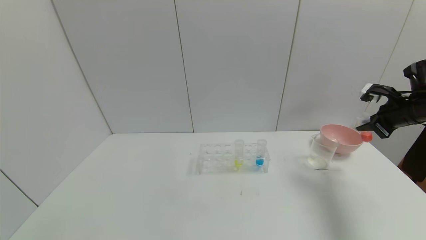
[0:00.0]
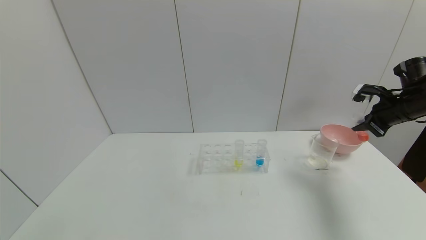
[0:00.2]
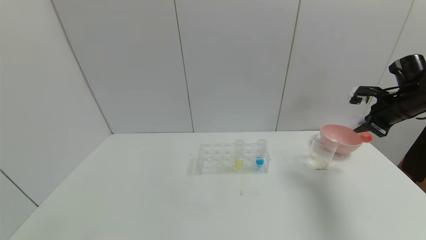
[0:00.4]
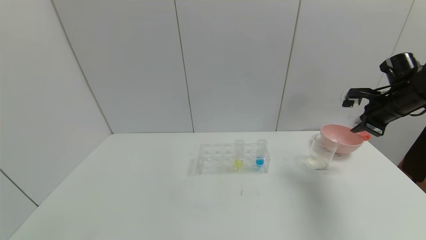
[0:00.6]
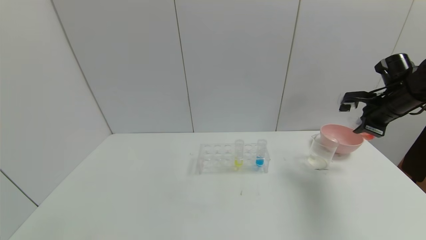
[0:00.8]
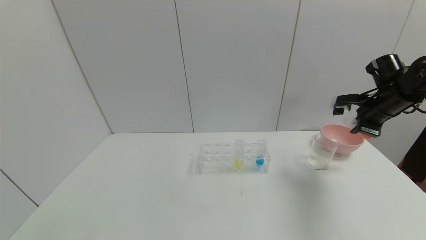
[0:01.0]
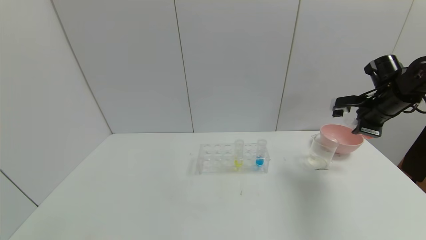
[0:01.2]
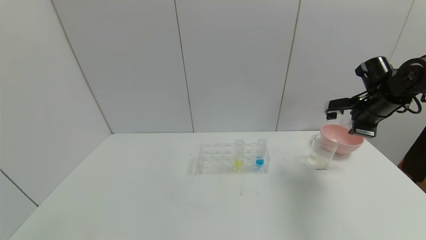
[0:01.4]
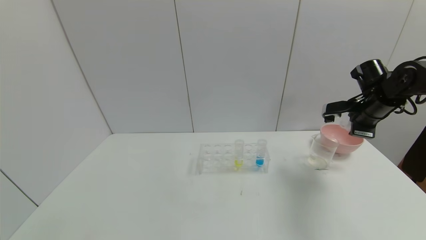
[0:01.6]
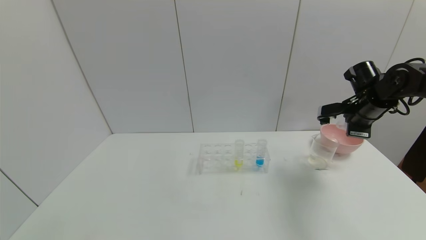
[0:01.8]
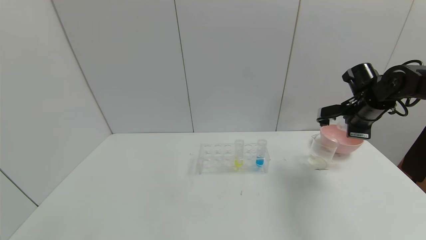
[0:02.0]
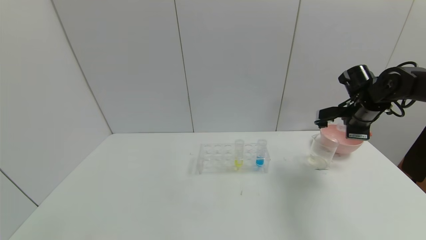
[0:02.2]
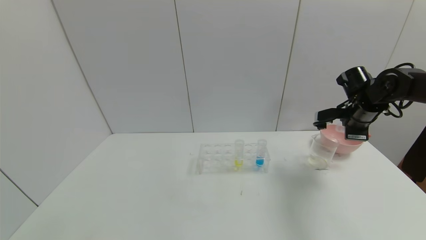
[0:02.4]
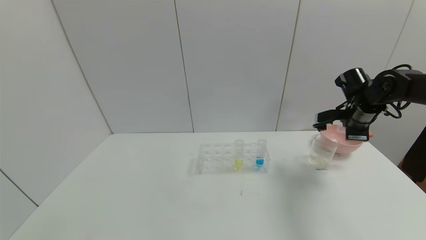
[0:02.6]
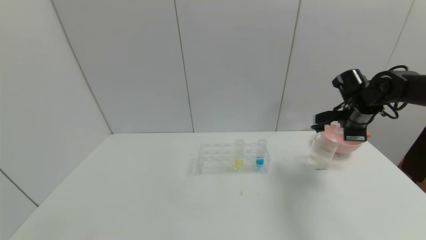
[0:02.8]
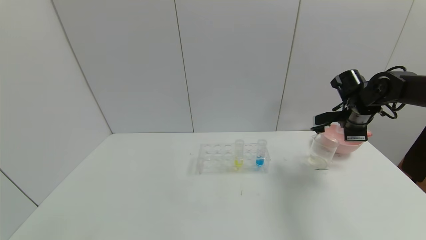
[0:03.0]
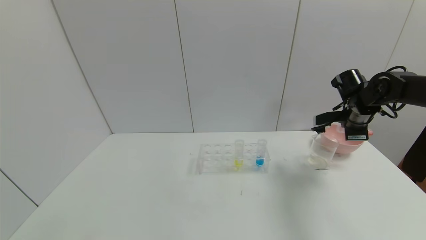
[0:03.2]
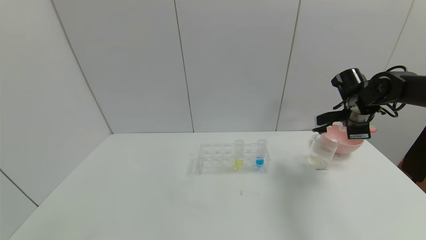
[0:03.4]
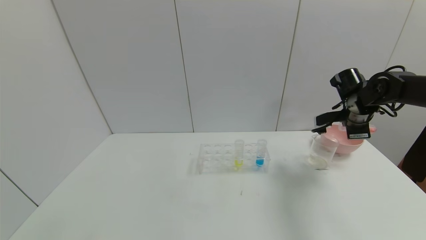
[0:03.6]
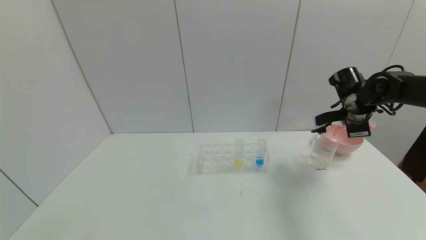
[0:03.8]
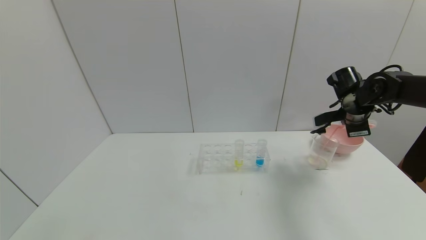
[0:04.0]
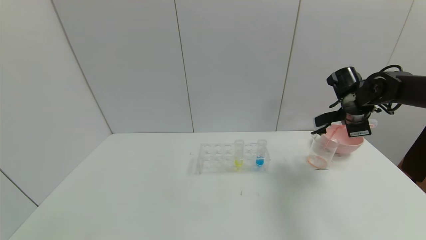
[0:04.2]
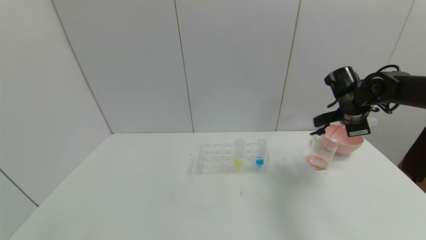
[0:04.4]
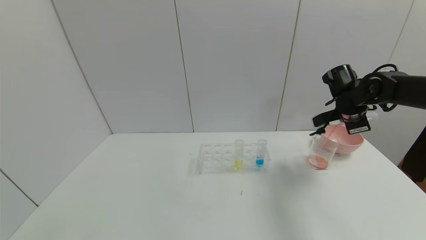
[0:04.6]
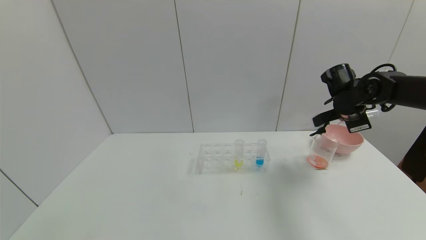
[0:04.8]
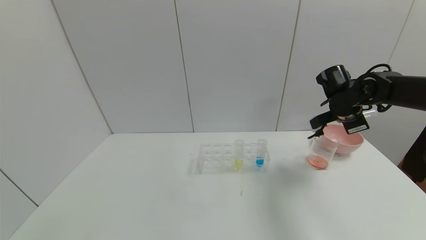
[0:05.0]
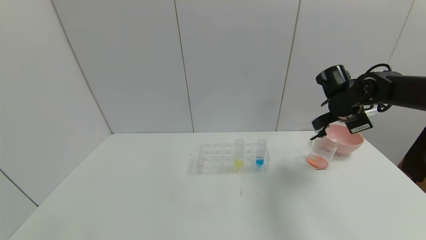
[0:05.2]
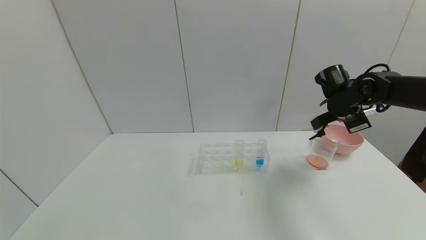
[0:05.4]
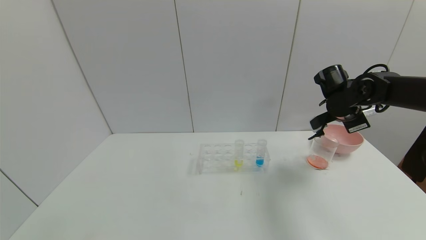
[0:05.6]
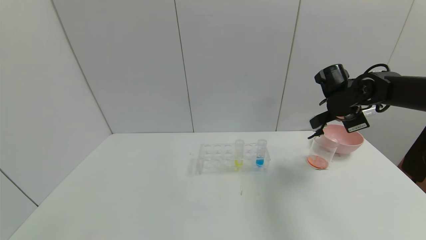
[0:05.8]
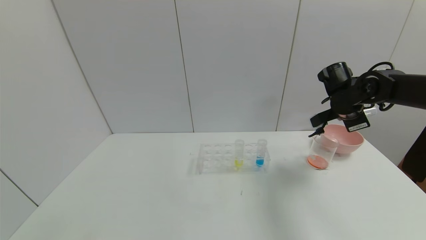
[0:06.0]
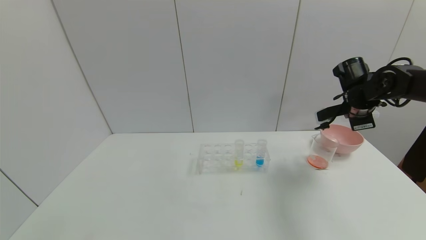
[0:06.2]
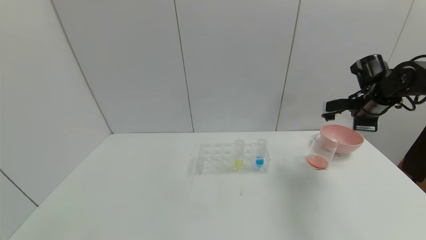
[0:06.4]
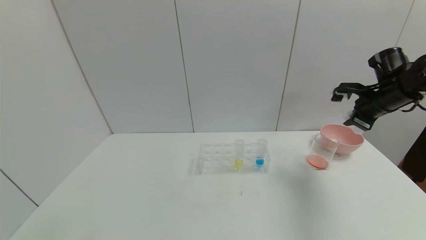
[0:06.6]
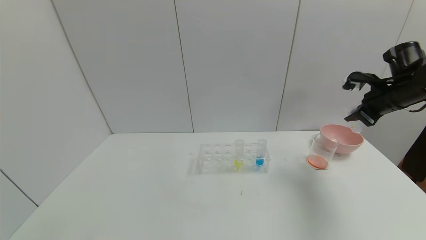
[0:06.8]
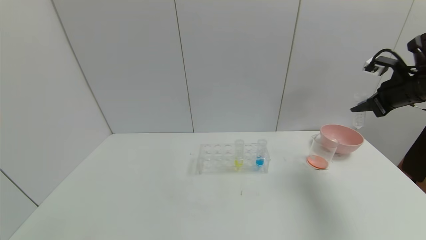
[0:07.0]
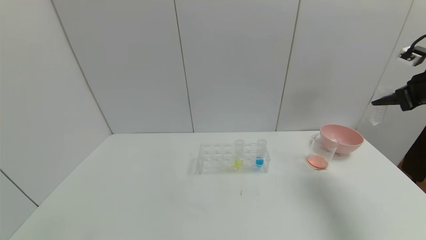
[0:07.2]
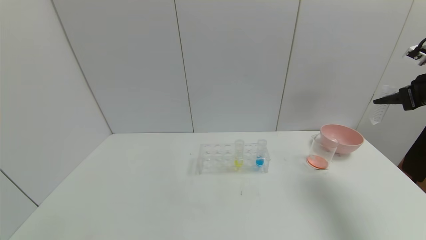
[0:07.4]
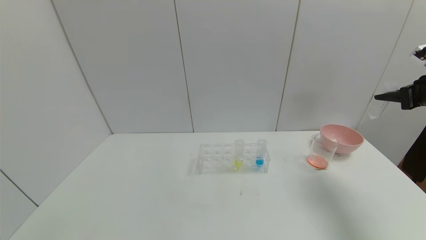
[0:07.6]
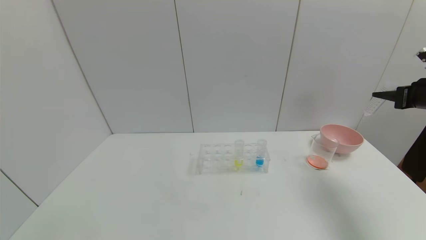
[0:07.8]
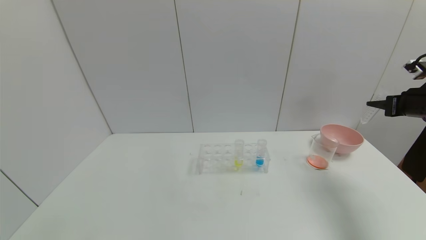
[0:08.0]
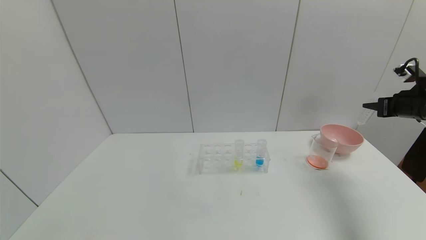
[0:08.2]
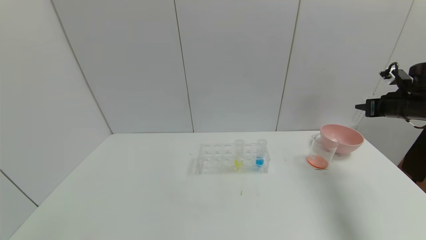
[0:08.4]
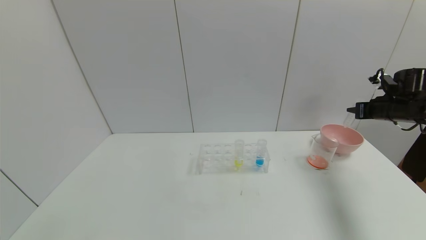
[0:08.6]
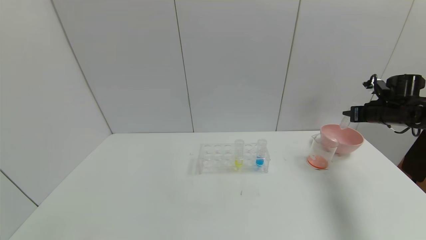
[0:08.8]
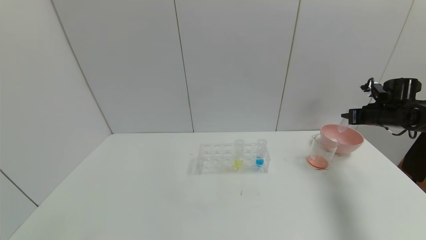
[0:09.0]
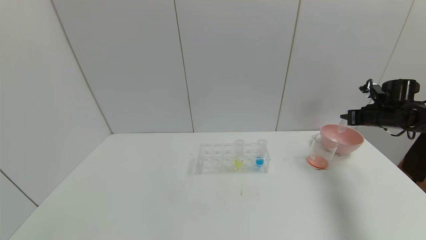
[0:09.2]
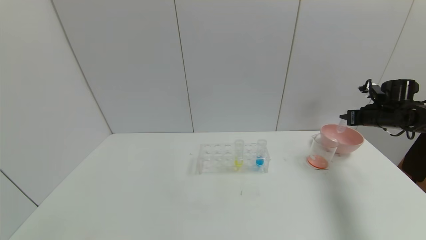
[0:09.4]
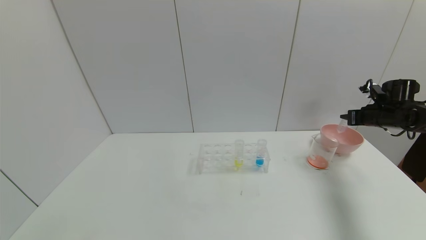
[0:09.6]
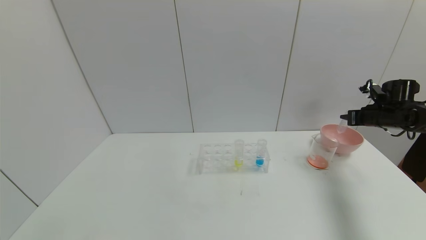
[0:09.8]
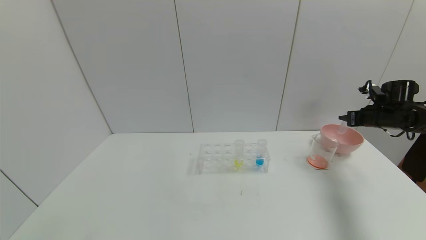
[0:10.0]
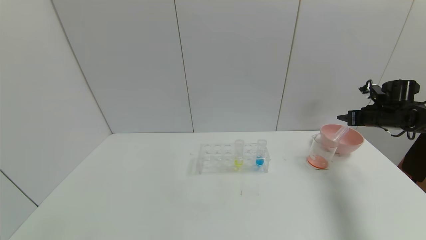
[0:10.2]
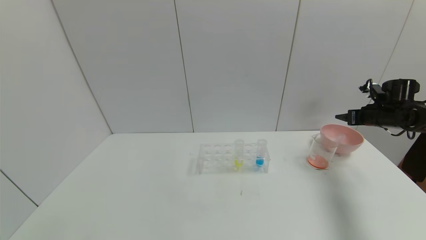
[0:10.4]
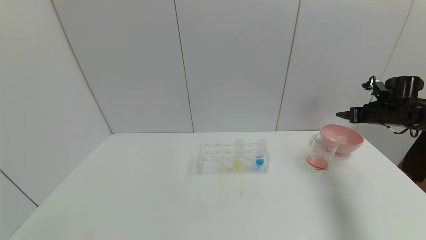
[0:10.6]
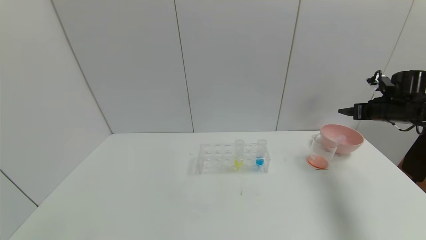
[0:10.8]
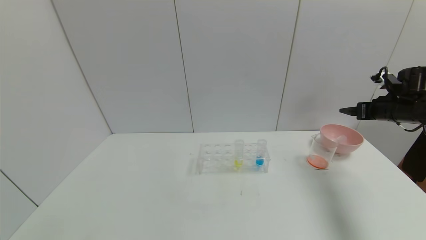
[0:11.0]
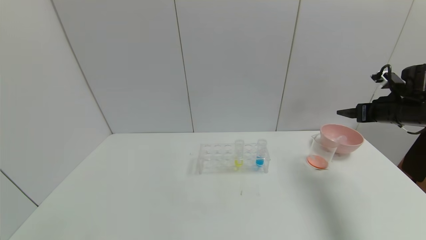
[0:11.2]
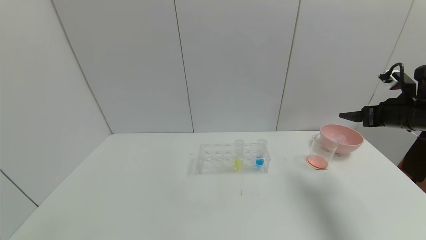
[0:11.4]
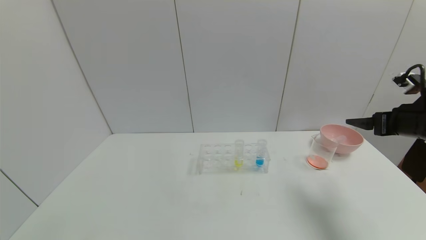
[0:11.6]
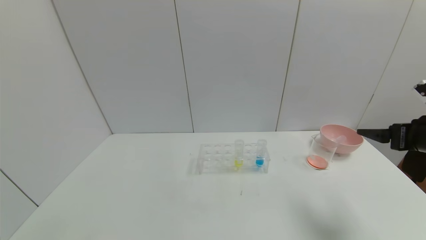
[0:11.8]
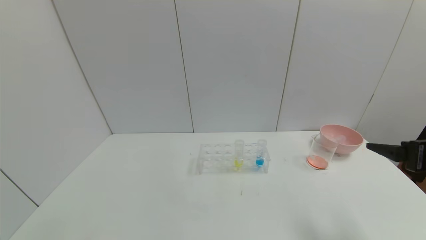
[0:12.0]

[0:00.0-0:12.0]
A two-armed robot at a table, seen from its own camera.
Task of the whole recording: pick up the test tube with yellow pigment and the test tube with red pigment by grippers and pour them into the beaker.
Step, 0:00.0 to 0:07.2: Pour the red reagent into the graduated cylinder with right gripper.
Step, 0:07.4 to 0:11.6: Place the test tube into the bowl with right gripper.
0:00.0 to 0:01.6: The right gripper travels to the left by some 5 cm.
0:01.6 to 0:03.0: The grippers make only small movements.
0:03.0 to 0:04.4: There are only small adjustments of the grippers.
0:04.4 to 0:06.0: The grippers make only small movements.
0:06.0 to 0:07.6: The right gripper shifts approximately 20 cm to the right, backward and upward.
0:07.6 to 0:09.0: The right gripper goes approximately 15 cm downward and forward.
0:09.0 to 0:10.4: The right gripper opens.
0:10.4 to 0:12.0: The right gripper heads backward, covering about 25 cm.

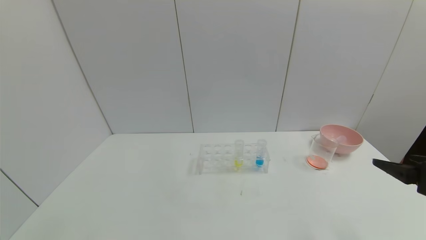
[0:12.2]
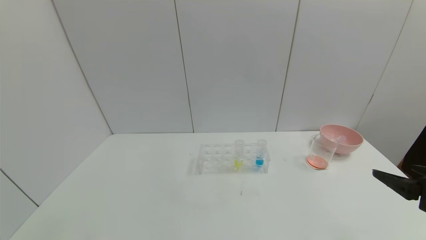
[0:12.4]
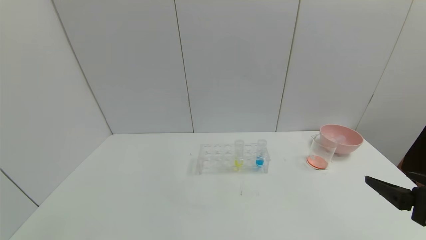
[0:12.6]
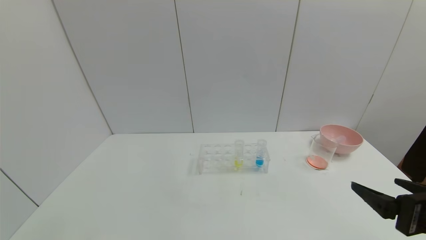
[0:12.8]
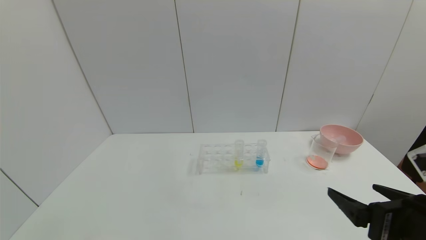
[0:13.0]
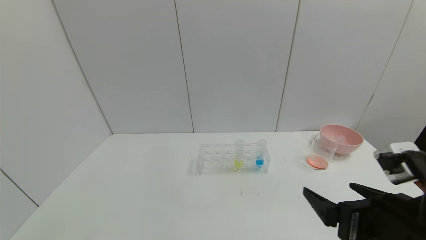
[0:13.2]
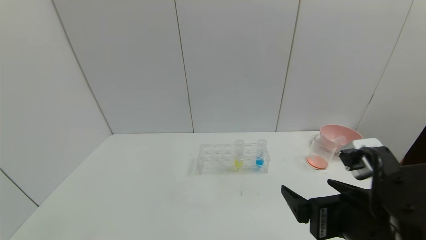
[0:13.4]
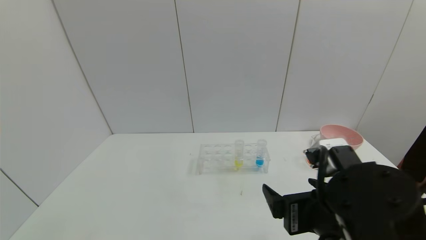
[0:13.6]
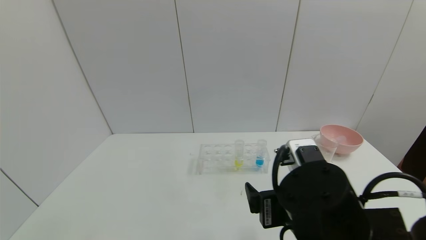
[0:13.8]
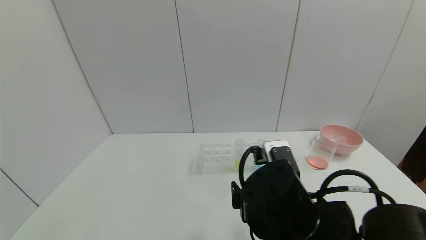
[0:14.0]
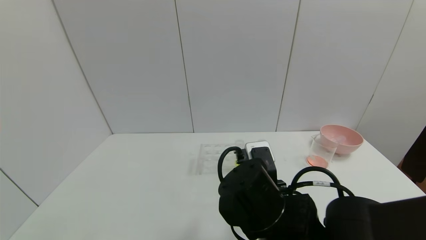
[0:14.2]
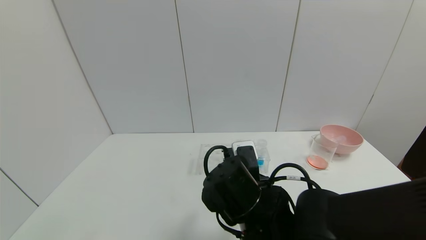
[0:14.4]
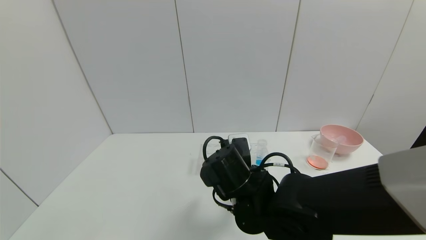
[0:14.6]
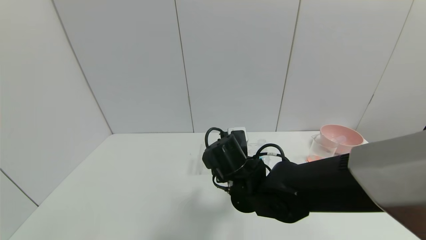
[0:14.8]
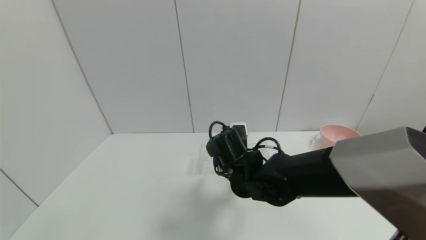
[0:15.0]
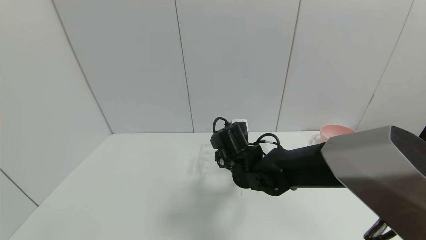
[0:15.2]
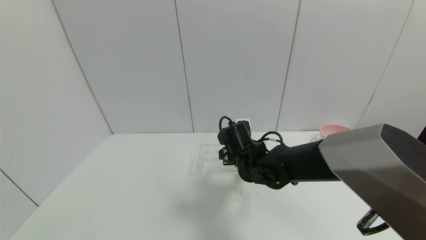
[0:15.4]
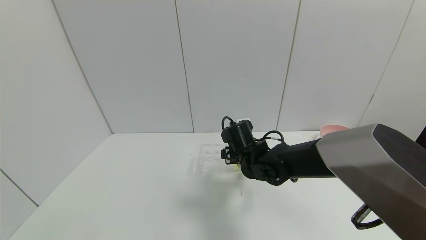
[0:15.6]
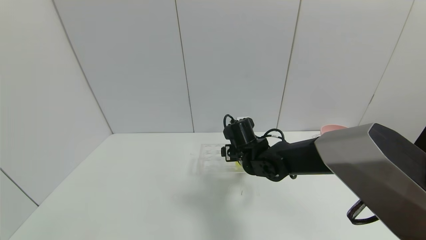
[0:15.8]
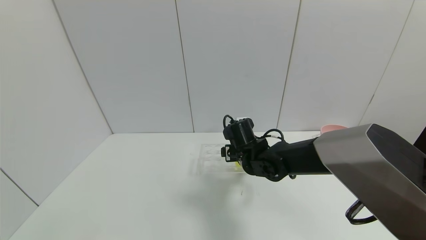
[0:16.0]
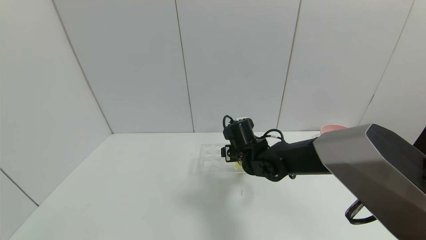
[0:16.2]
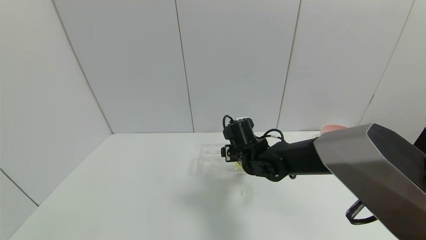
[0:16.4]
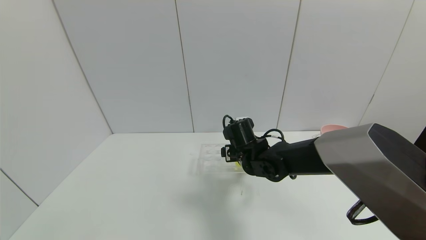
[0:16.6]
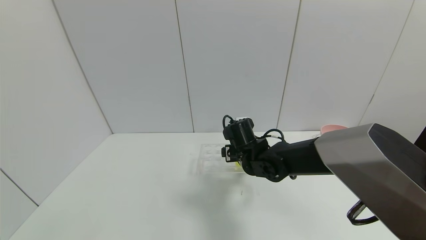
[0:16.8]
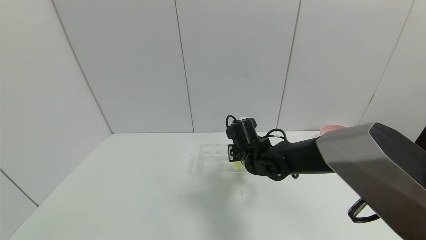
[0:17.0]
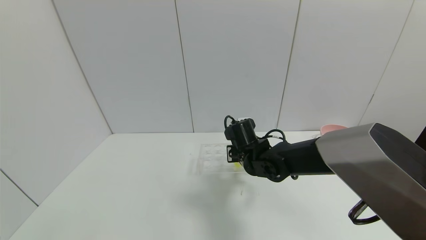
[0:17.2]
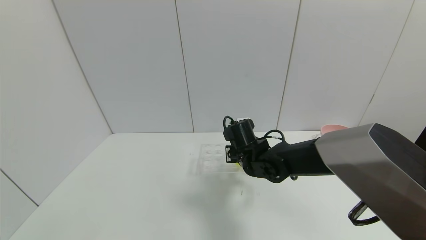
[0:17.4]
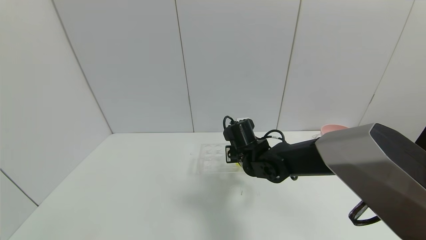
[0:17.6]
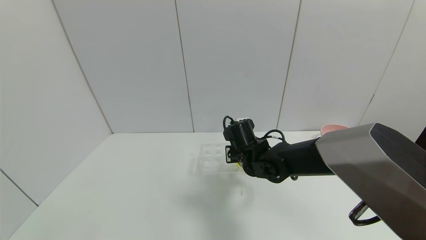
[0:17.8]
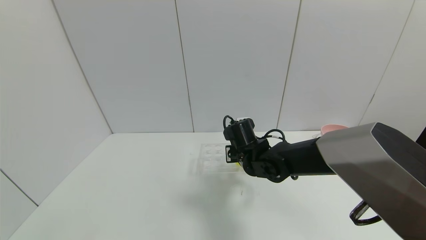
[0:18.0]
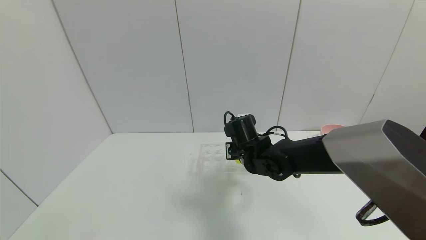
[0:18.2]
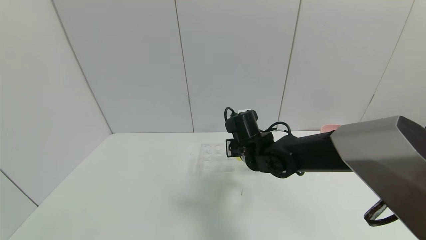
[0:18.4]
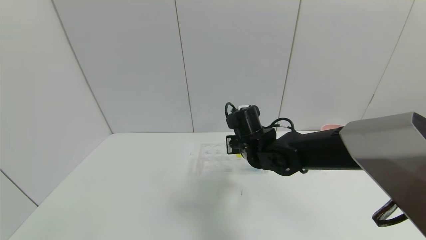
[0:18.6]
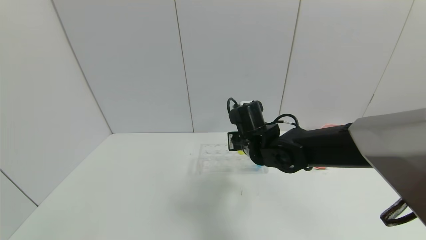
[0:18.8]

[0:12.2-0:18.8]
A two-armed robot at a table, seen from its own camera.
Task of the whole recording: pick up the test tube with yellow pigment and the test tube with red pigment by grippers and pour them into the beaker.
0:12.2 to 0:13.8: The right gripper moves to the left, some 25 cm.
0:13.8 to 0:15.4: The right gripper heads forward, covering some 20 cm.
0:15.4 to 0:17.2: The right gripper closes up.
0:17.2 to 0:18.8: The right gripper moves upward, some 5 cm.
